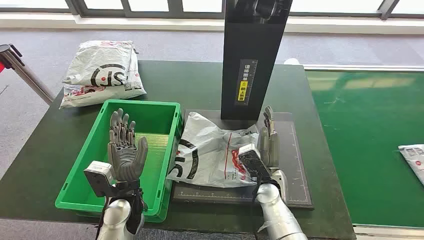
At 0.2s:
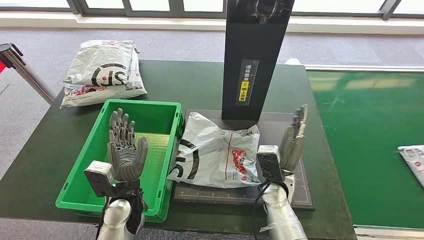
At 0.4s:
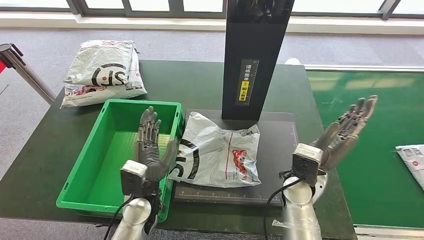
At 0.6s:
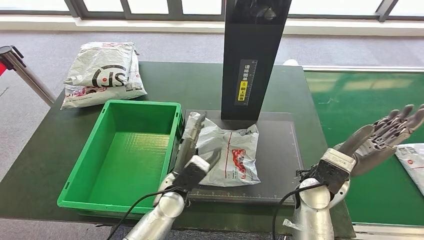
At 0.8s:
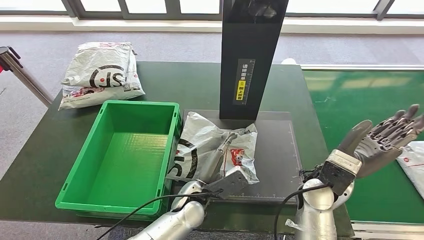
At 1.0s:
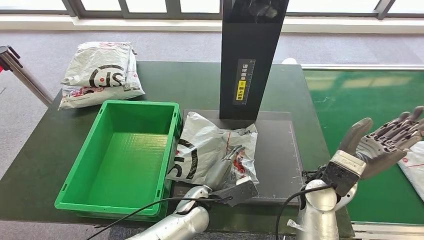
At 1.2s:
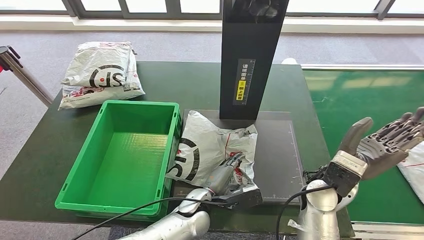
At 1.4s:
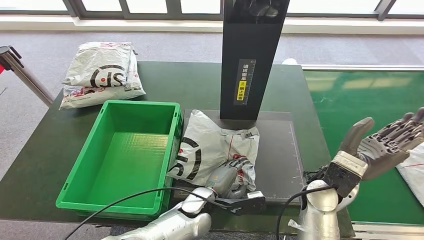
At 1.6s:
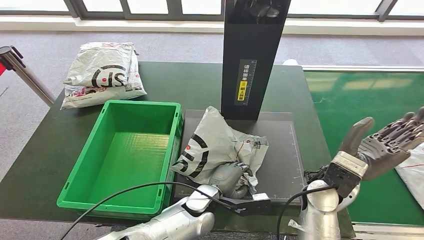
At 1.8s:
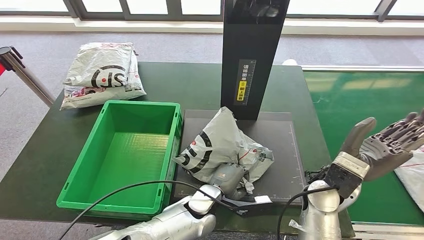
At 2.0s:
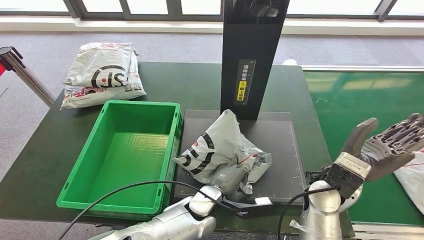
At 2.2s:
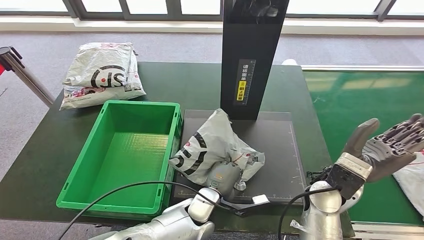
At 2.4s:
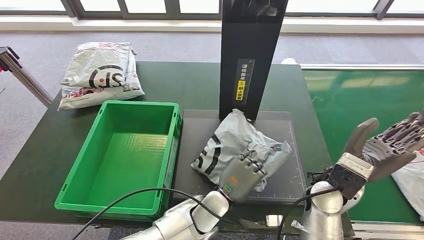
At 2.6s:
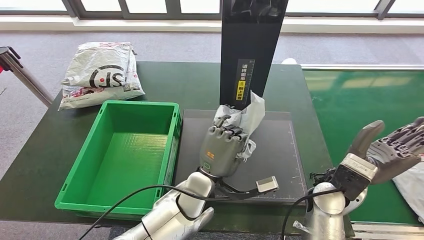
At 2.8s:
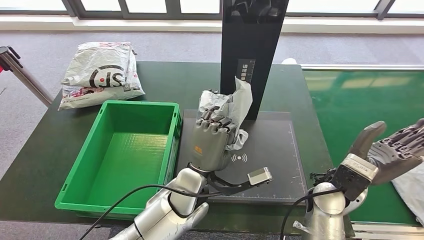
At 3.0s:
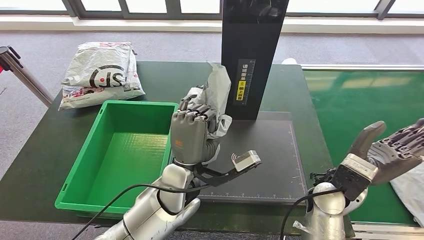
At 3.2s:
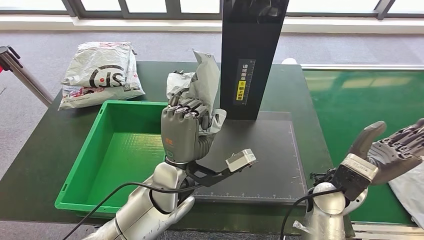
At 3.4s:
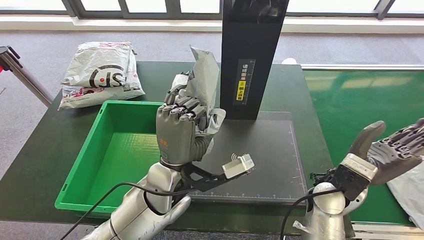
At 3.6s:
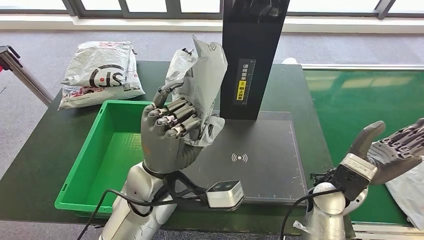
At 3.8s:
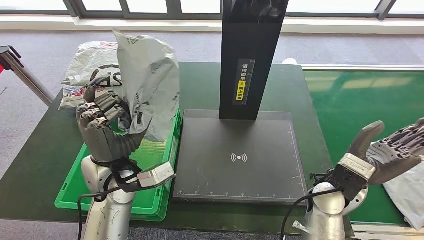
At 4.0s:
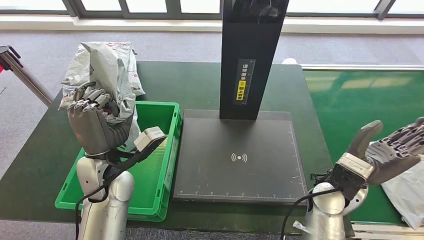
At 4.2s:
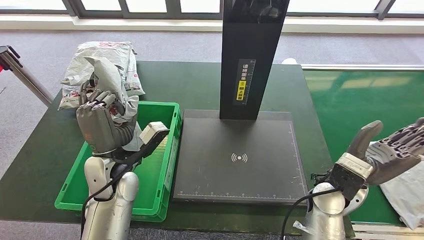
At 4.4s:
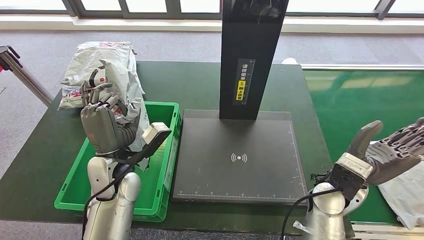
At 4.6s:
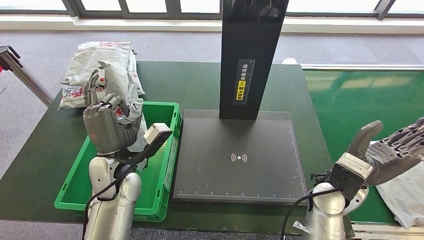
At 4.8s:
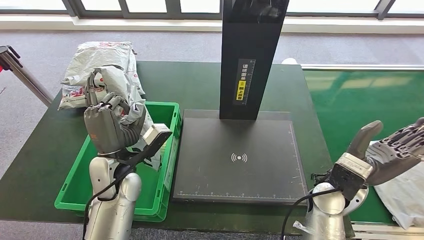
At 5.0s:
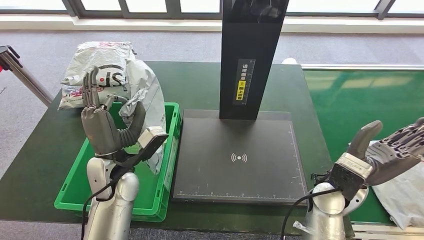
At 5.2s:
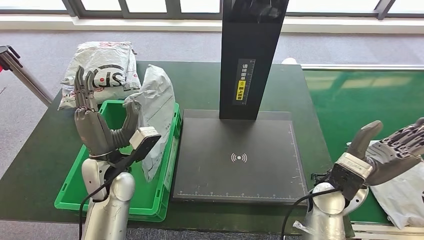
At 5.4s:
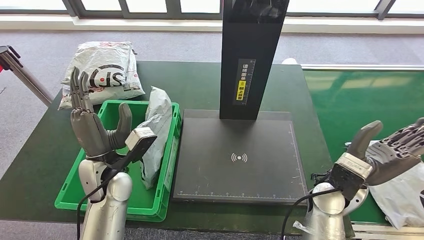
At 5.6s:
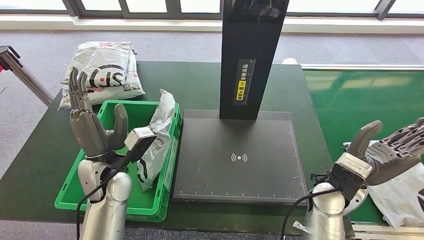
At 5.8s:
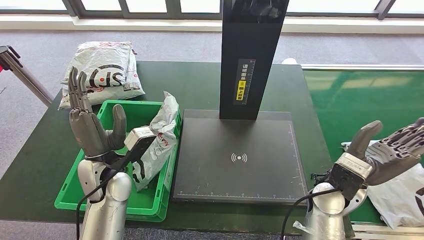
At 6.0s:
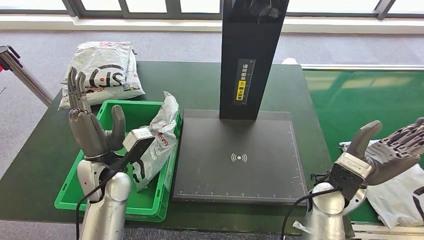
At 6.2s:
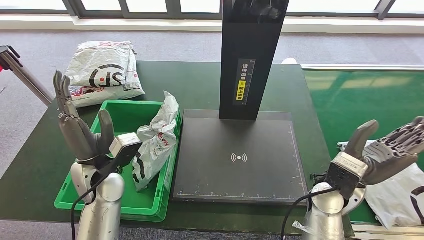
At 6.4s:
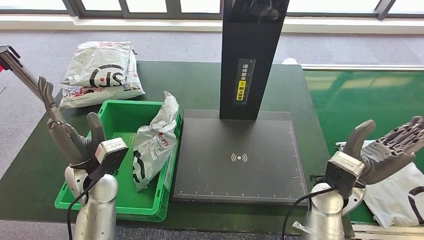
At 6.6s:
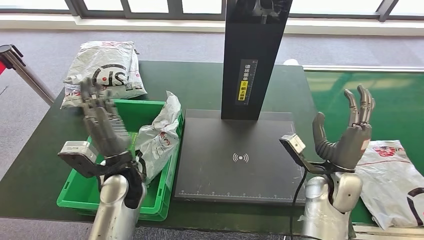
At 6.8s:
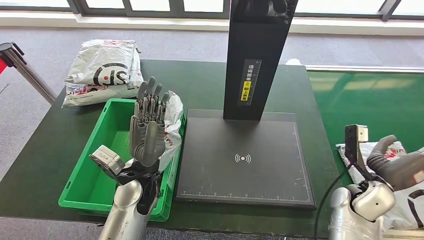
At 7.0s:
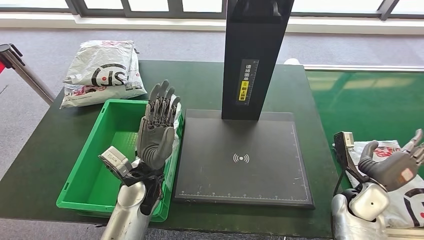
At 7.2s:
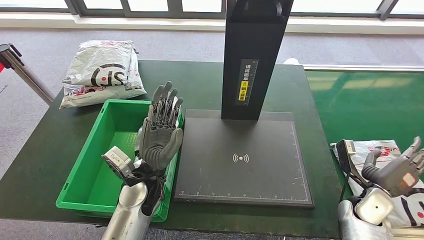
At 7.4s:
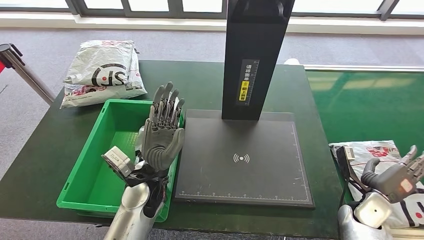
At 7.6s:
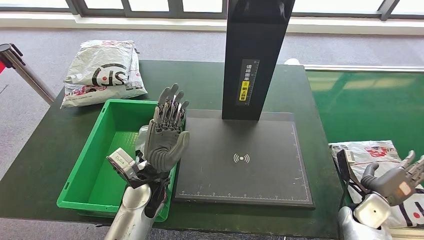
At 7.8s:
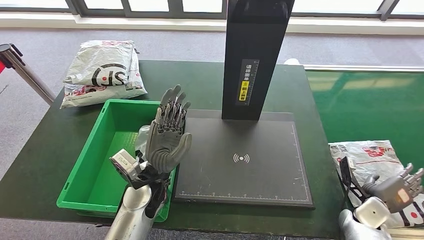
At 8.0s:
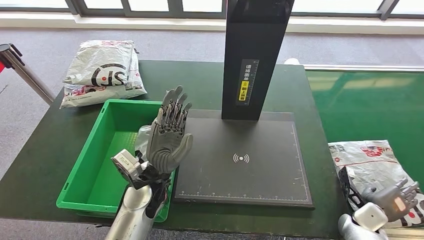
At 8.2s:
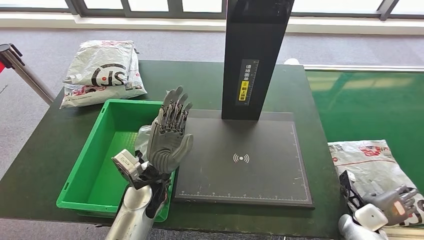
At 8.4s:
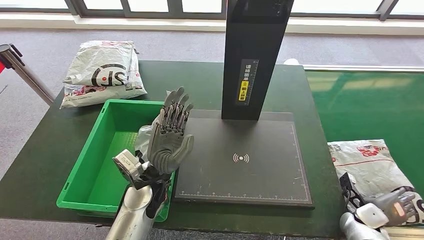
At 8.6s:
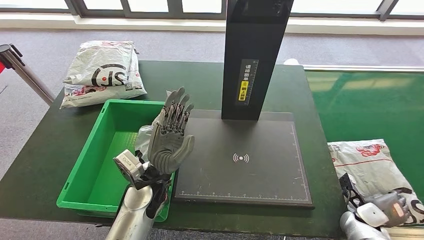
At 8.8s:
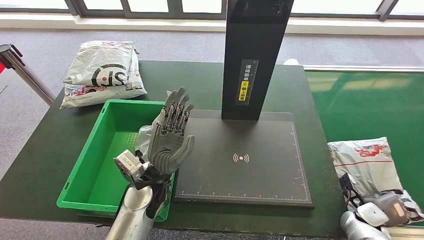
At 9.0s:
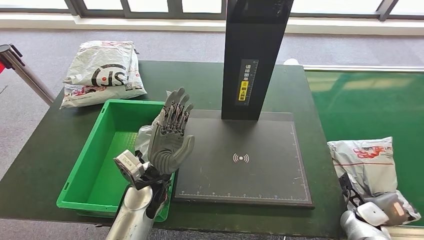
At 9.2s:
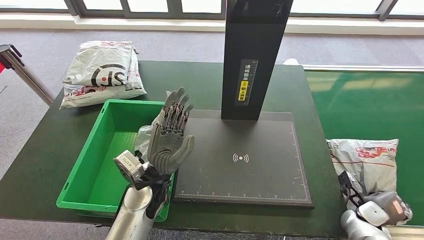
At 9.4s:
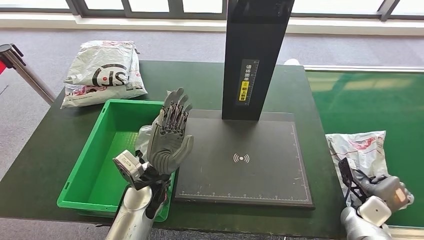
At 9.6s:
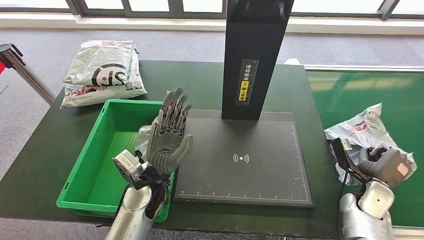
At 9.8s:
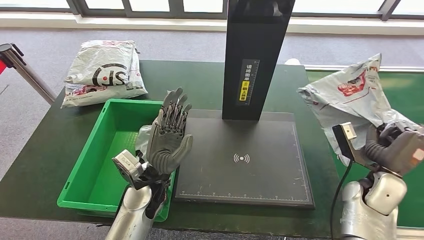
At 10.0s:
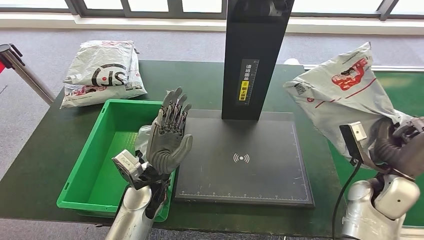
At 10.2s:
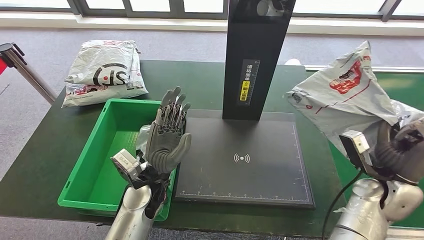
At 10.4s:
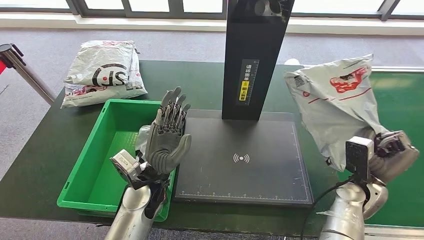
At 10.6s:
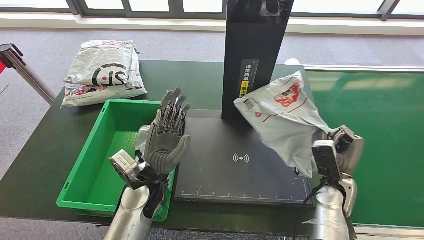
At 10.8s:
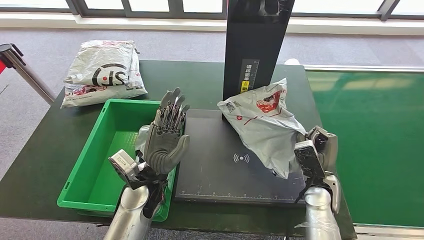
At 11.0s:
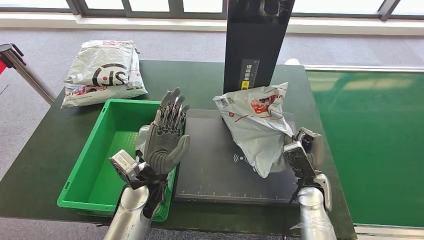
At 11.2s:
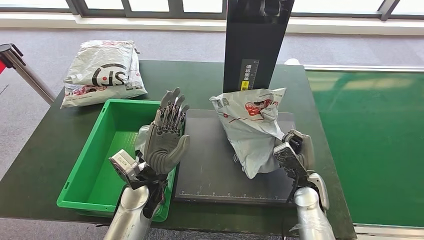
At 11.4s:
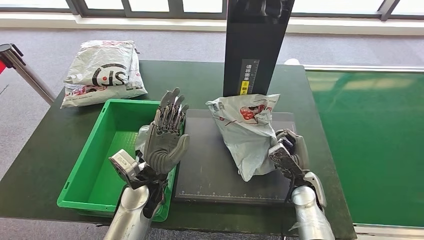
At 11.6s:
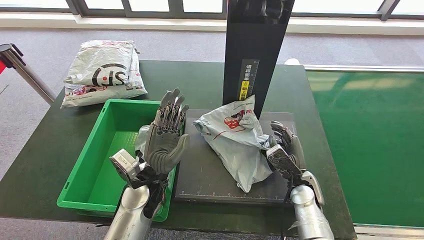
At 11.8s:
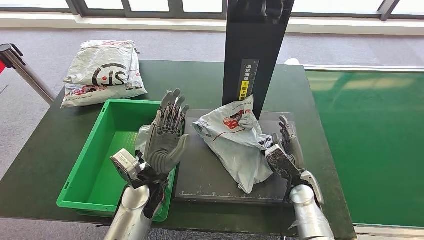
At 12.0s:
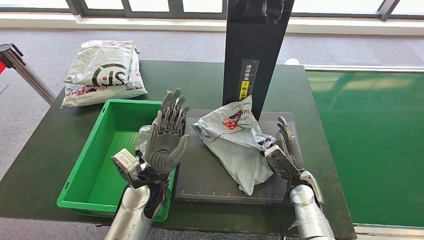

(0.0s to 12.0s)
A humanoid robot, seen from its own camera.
Step, 0.0s - 0.2s: Take the parcel off the conveyor belt.
Step, 0.4s - 1.2s: Place the parcel onto the inbound machine.
Step, 1.4s - 3.0s: Pick up the parcel from the inbound machine.
Step, 3.4s - 5.6s: Put the parcel inside the courier box.
Step, 5.8s - 10.2s: Pick up the parcel from the conveyor belt.
3.0s - 4.4s: The left hand moves to the left, roughly 15 cm.
4.4s - 6.0s: The hands make only small movements.
7.6s - 9.0s: The right hand goes approximately 5 cm downward.
9.0s - 10.4s: The right hand travels upward and to the left by about 15 cm.
10.4s - 12.0s: The right hand goes roughly 10 cm to the left and downward.

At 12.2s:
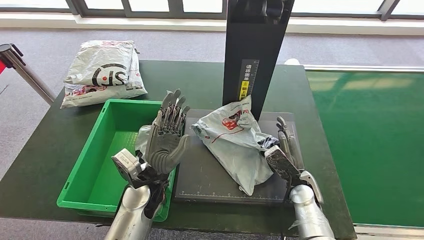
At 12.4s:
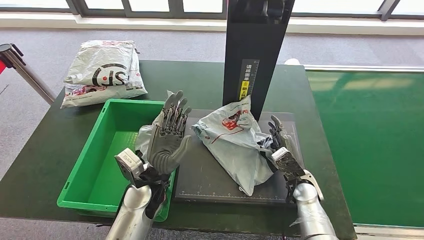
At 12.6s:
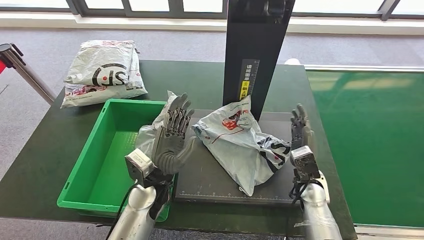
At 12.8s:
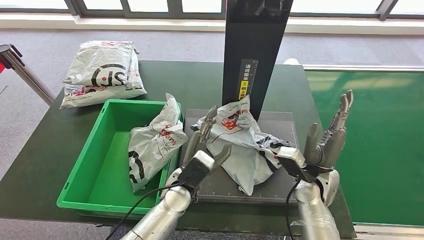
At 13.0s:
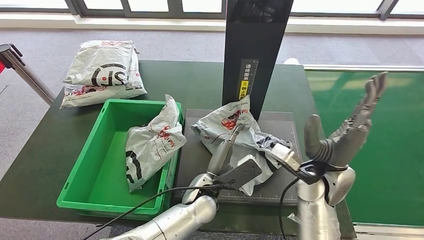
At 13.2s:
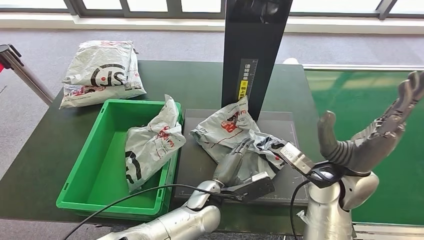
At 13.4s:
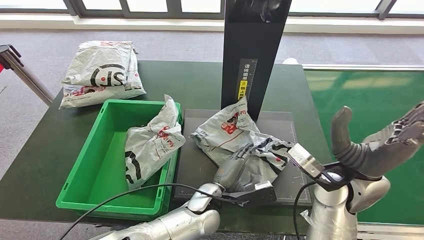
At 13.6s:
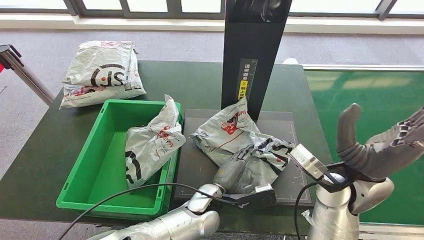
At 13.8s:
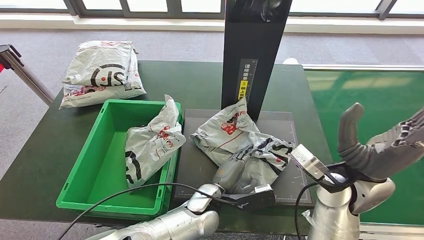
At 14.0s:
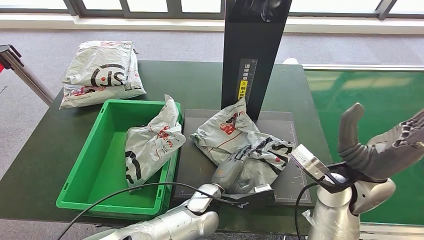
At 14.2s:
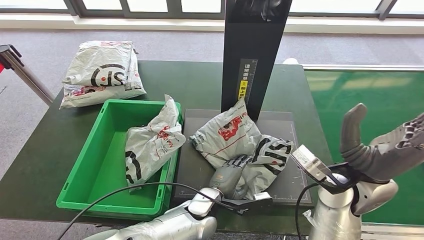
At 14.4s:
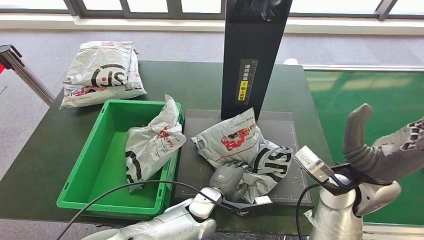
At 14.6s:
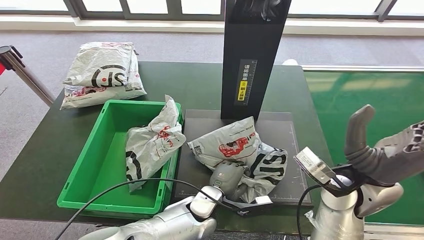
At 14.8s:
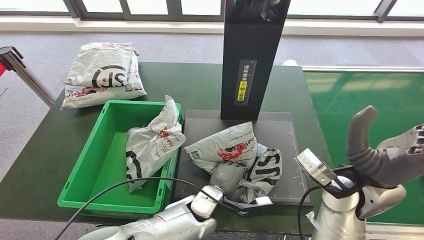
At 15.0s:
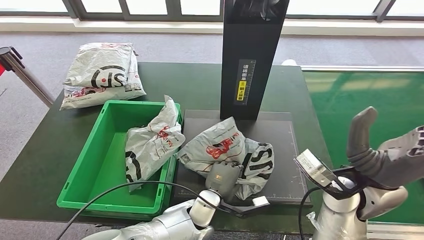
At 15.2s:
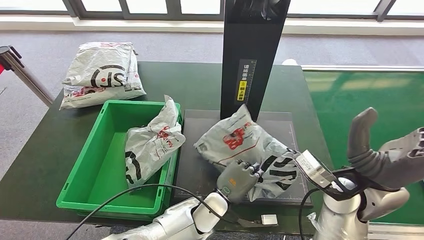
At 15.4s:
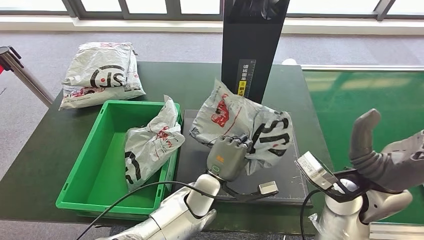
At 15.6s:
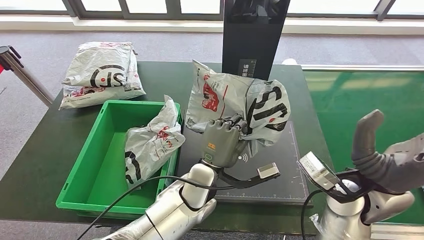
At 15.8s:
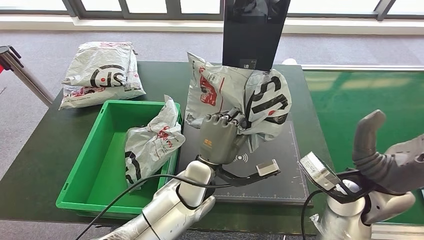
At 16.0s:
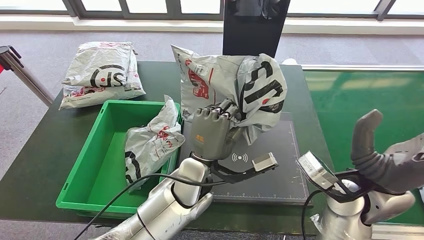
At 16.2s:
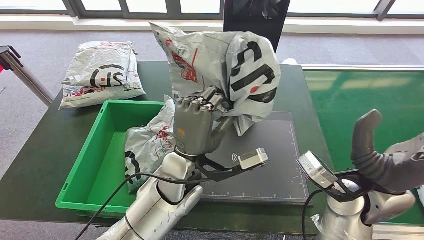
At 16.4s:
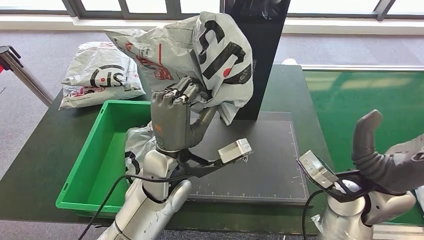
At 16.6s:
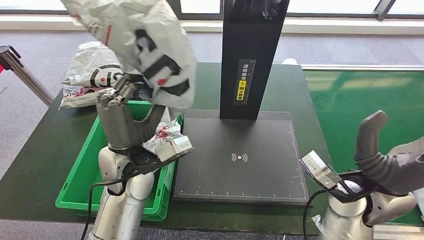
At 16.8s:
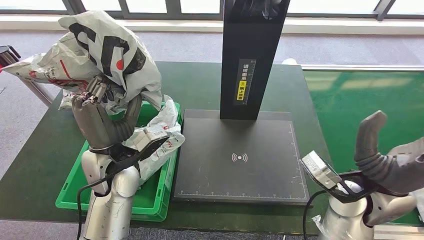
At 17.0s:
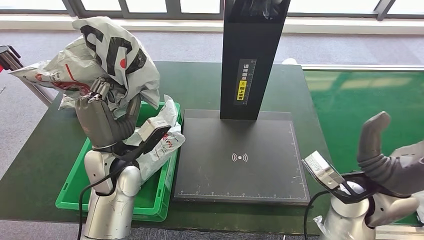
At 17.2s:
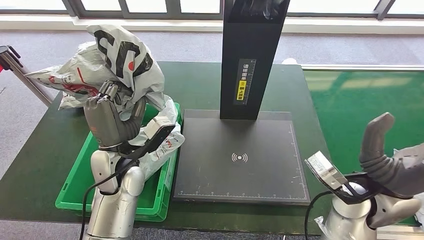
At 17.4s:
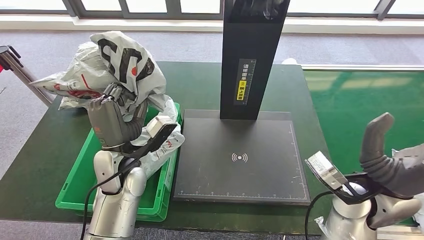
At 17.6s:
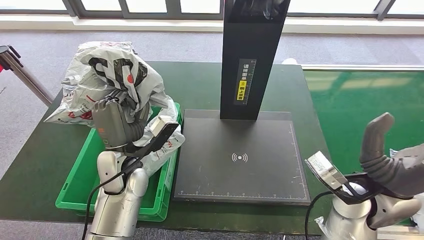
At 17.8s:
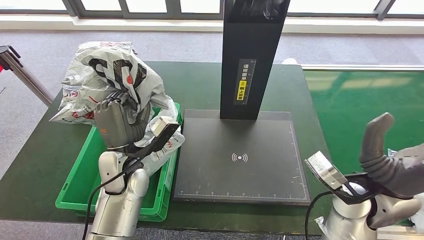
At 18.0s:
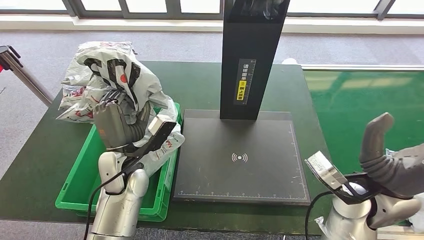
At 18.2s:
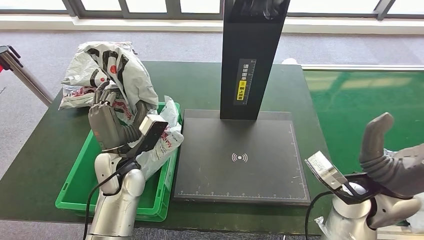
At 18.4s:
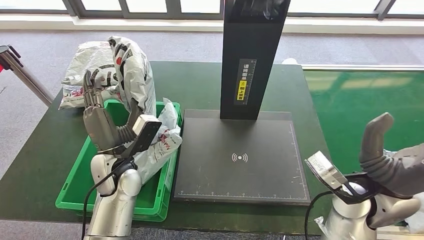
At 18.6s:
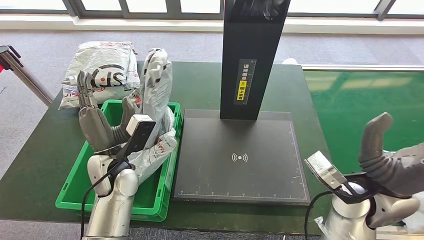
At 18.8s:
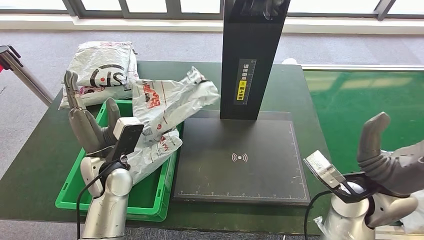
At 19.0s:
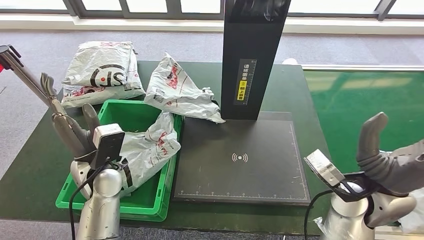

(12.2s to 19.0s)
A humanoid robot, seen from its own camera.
Step, 12.6s - 15.6s: Pick up the parcel from the inbound machine.
